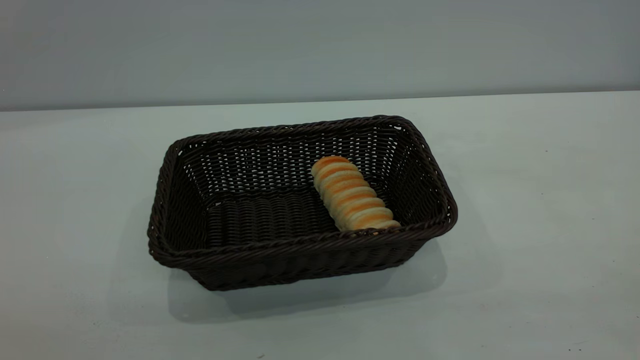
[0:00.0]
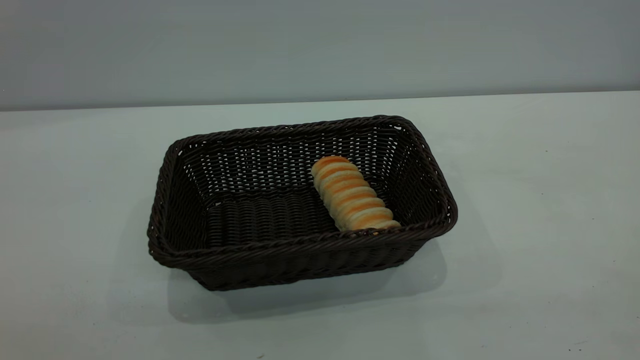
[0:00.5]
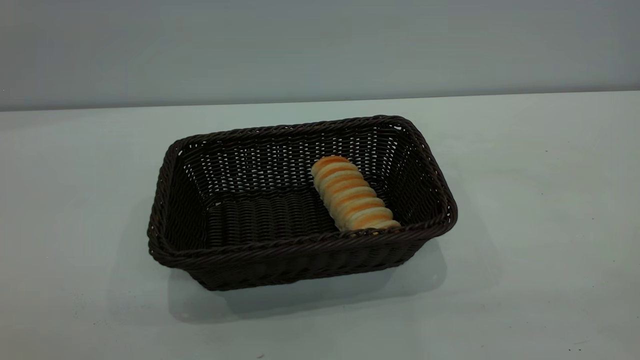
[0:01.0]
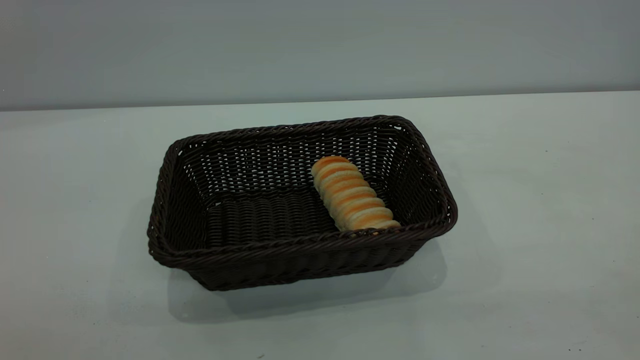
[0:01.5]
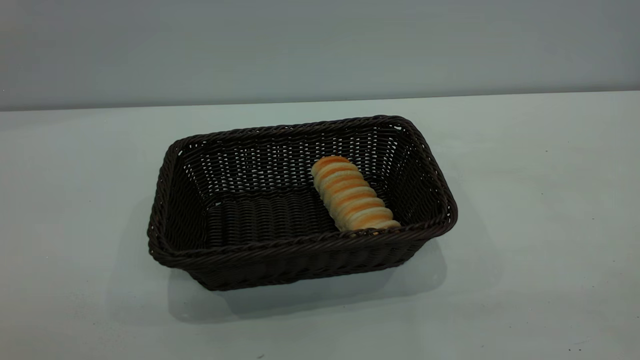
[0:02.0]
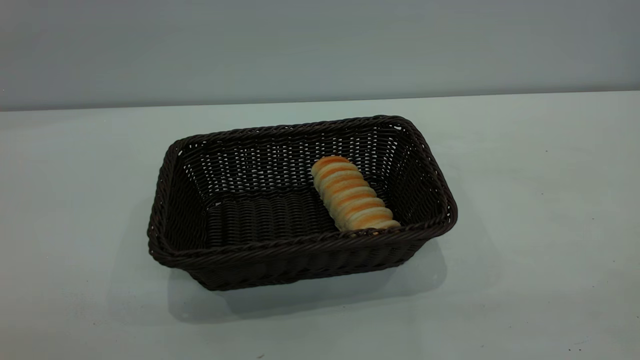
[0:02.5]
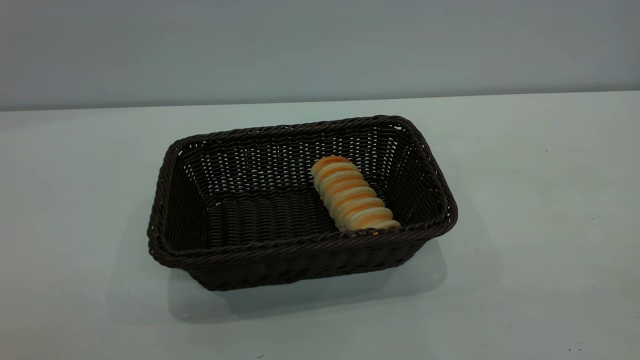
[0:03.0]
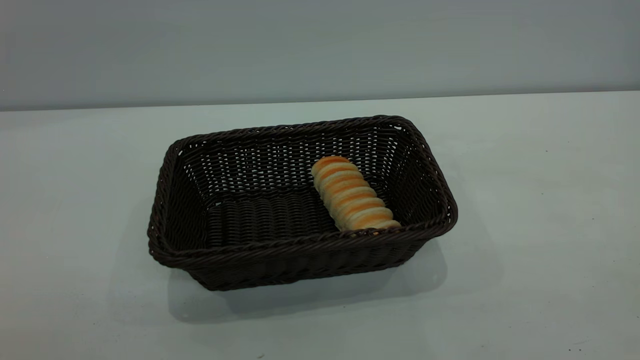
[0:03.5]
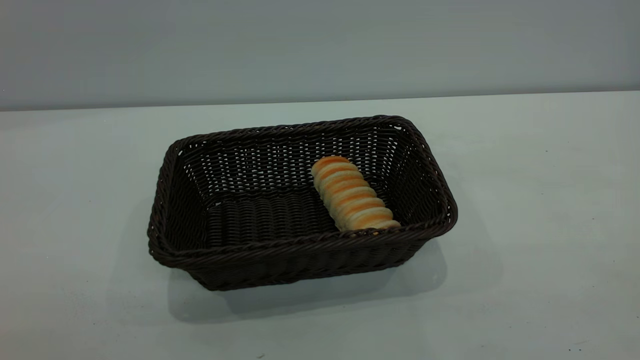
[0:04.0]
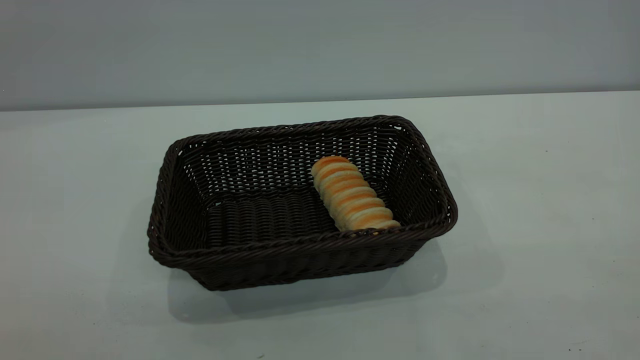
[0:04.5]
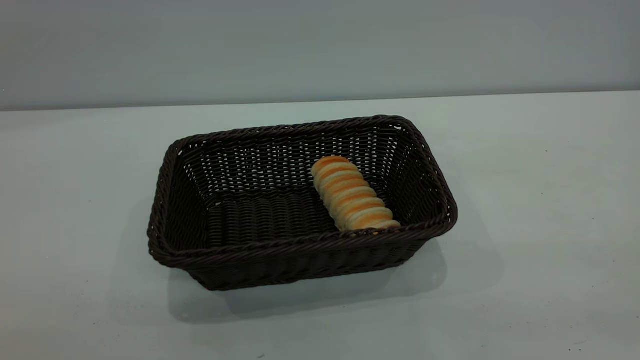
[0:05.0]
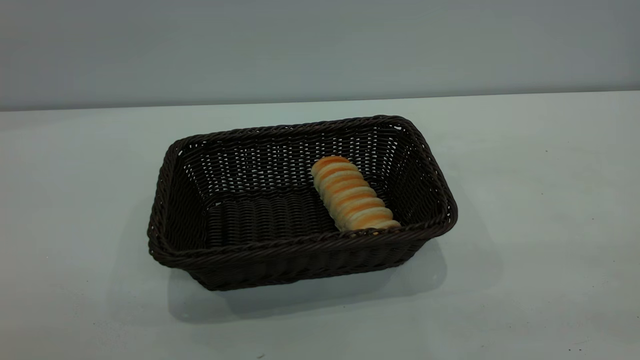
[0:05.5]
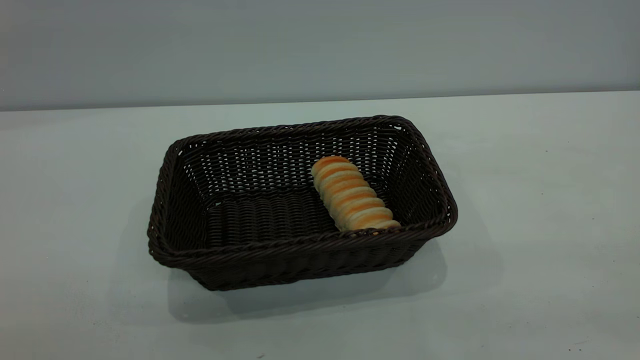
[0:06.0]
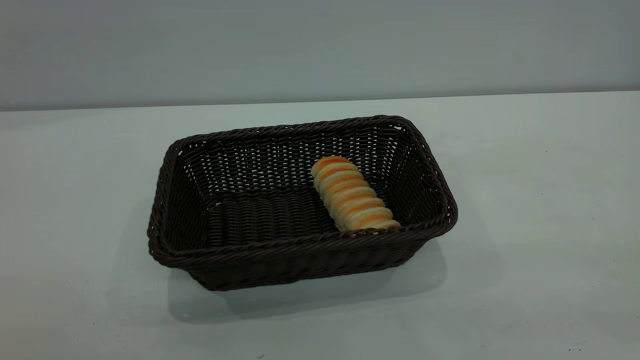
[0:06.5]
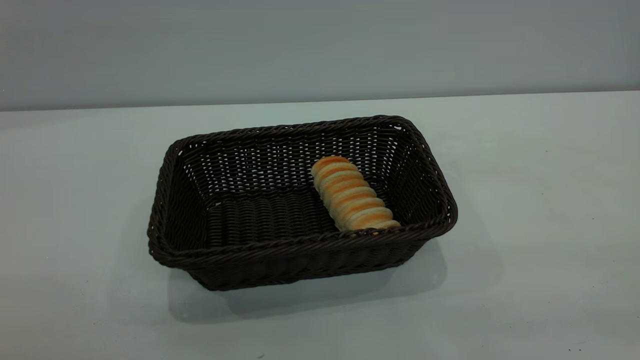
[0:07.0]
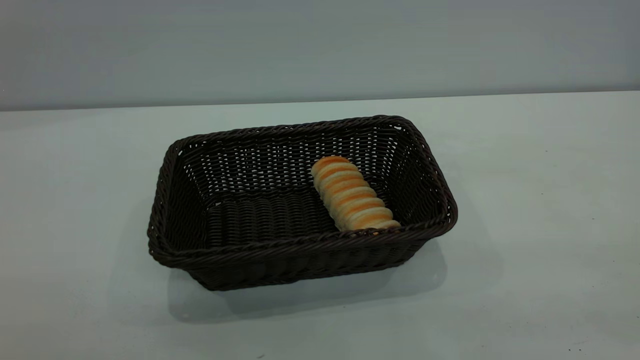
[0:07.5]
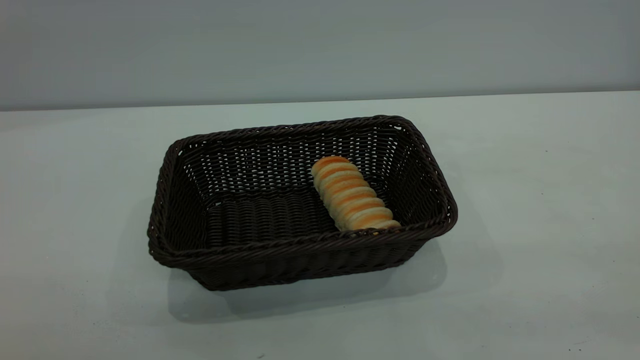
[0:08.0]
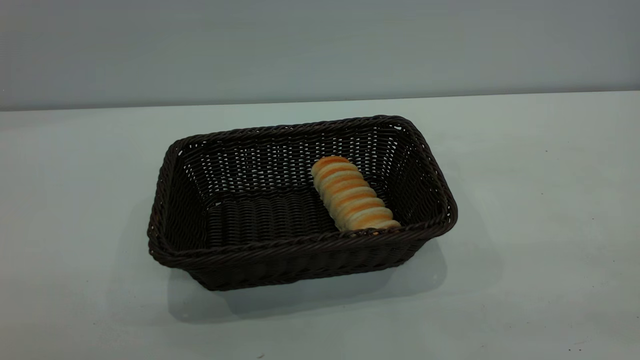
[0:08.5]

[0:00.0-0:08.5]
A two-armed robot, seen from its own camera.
Task of the whole recording: One hand grasps the black basket and places it in the middle of the table, while the other hand picks up the long bread and puts it into the black basket.
0:06.5 to 0:08.5: Both grippers stay put.
